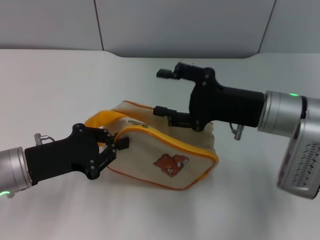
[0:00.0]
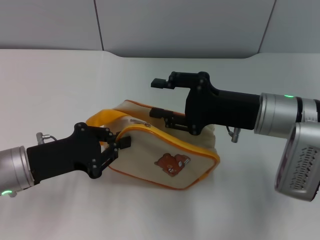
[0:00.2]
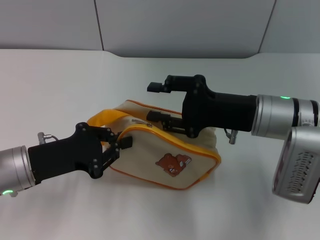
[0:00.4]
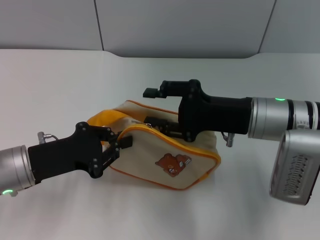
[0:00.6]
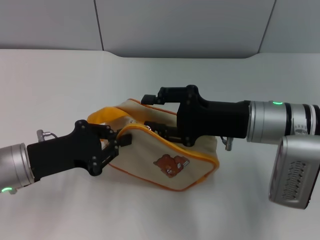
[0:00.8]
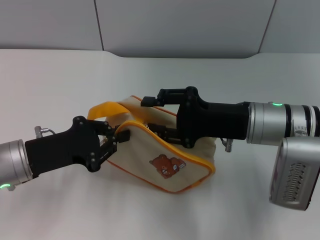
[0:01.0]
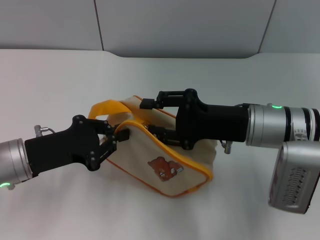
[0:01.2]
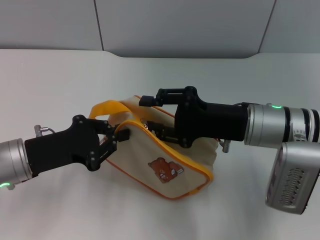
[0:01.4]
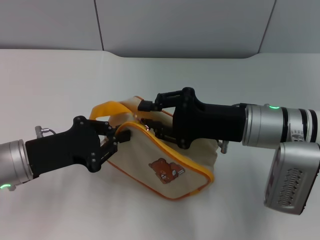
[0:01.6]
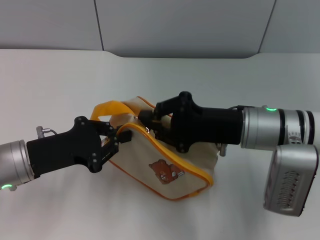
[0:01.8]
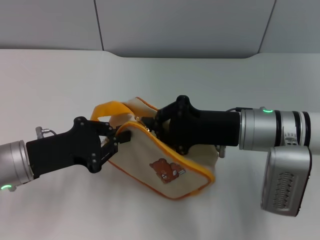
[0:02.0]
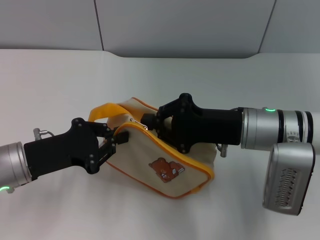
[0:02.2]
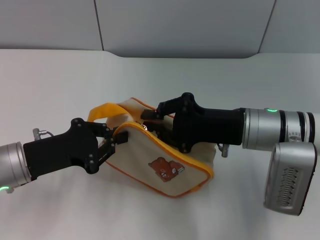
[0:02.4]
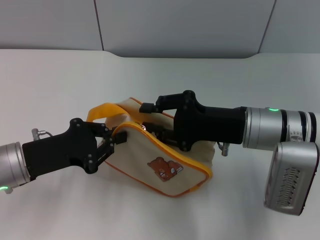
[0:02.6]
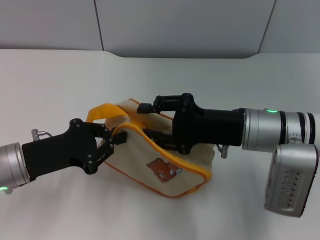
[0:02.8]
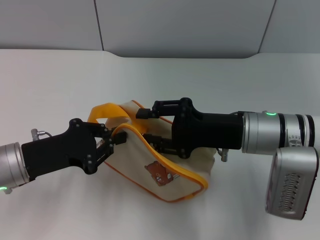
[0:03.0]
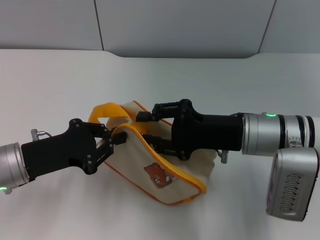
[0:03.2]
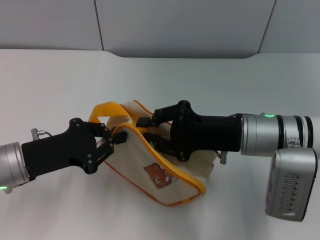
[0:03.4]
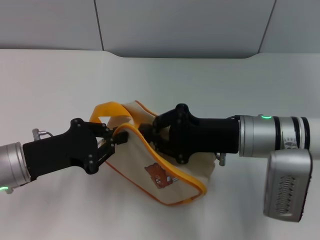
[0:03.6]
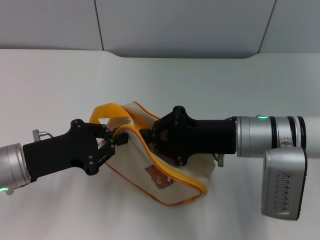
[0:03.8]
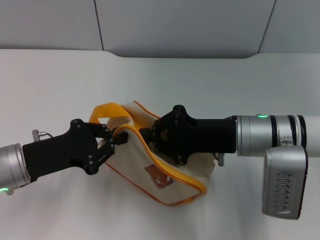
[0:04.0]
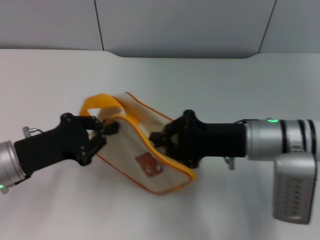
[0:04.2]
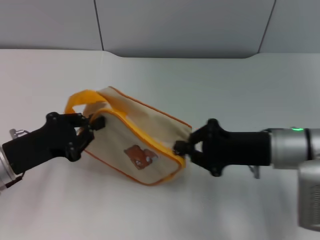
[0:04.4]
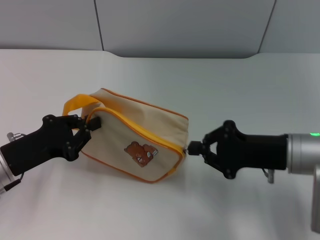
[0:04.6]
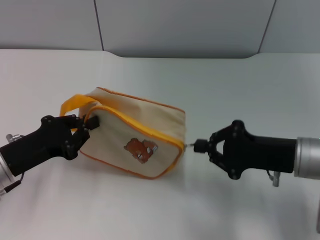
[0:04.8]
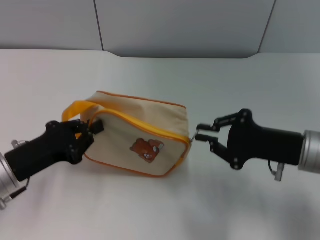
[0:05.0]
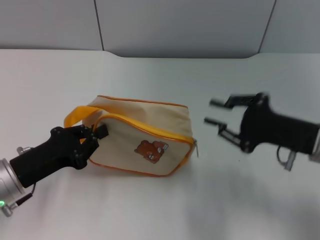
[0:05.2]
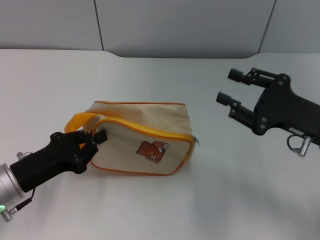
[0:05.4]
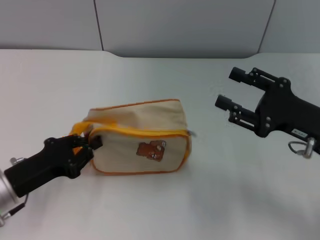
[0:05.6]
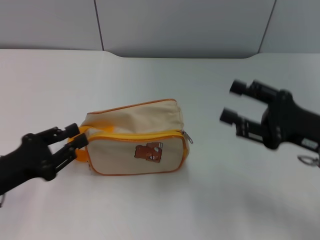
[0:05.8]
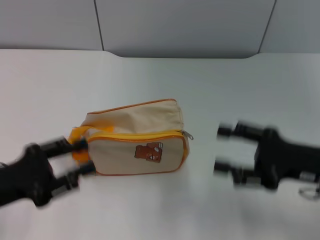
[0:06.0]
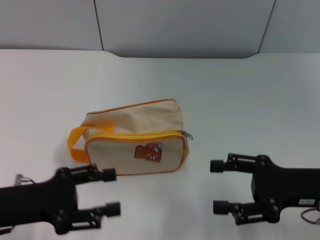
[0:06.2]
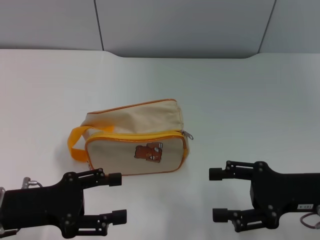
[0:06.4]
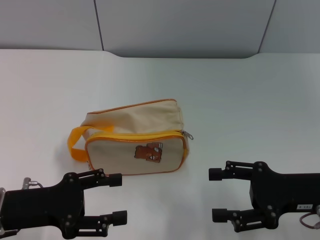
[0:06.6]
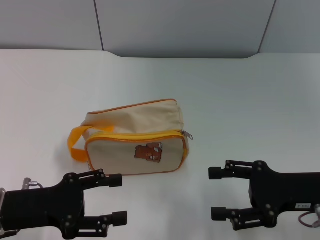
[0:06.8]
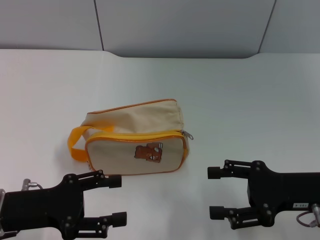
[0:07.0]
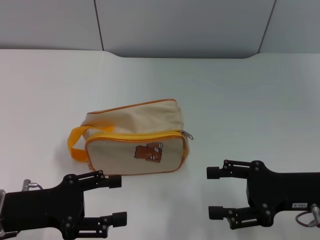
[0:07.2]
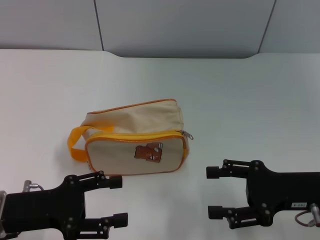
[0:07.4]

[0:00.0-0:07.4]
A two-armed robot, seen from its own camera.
Step, 0:00.0 to 0:05.0: Unzip the zipper of bag with right gripper.
Step, 0:05.4 to 0:05.8: Place the bag on the table with left gripper.
0:01.4 to 0:03.0: The right gripper closes, then opens again.
0:03.0 to 0:04.4: The right gripper closes up.
0:04.4 to 0:06.0: The right gripper moves to the right, roughly 5 cm, and opens its fingers; the left gripper ends up roughly 5 cm from where it was.
0:06.0 to 0:07.4: The left gripper opens.

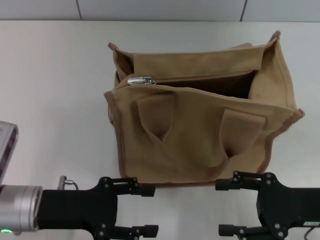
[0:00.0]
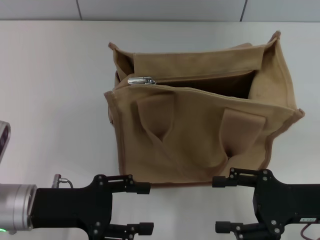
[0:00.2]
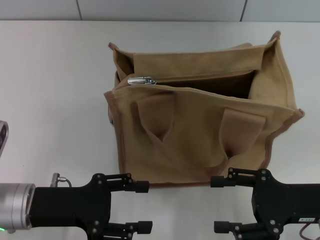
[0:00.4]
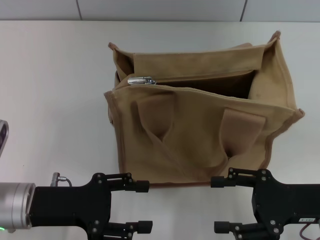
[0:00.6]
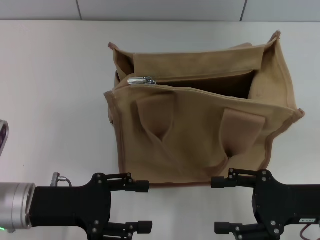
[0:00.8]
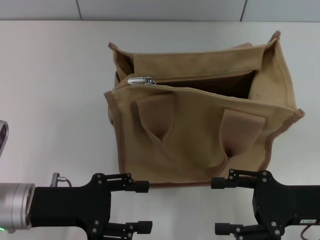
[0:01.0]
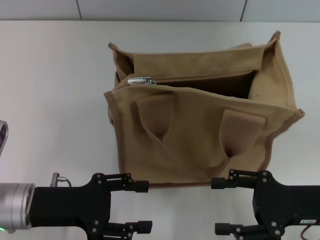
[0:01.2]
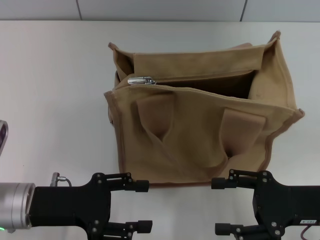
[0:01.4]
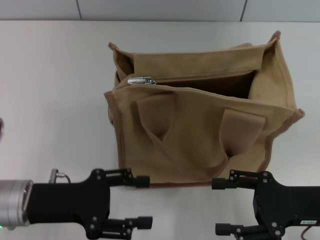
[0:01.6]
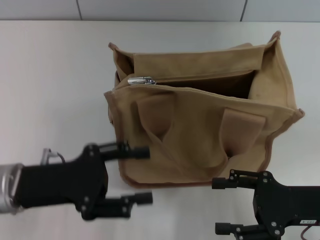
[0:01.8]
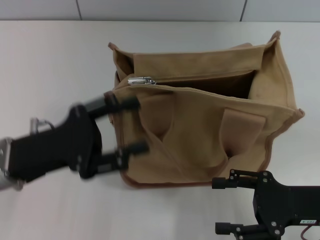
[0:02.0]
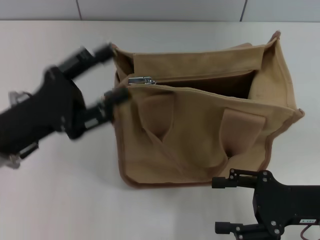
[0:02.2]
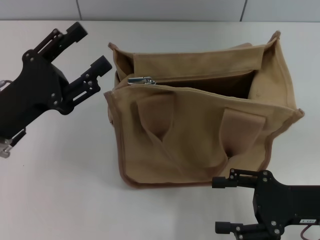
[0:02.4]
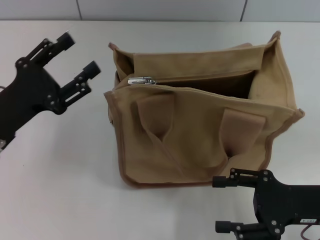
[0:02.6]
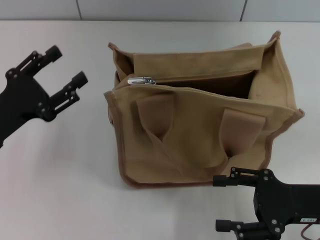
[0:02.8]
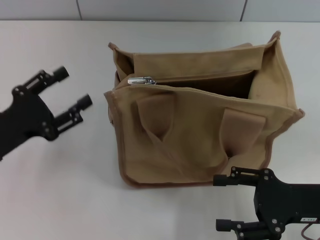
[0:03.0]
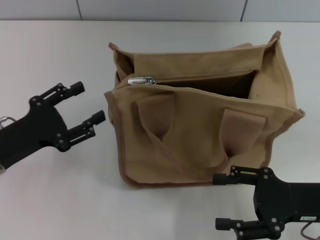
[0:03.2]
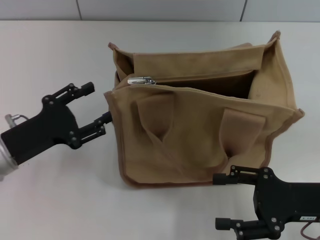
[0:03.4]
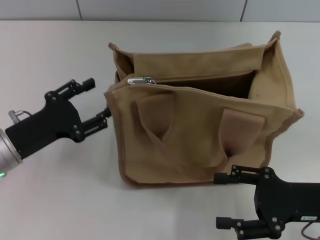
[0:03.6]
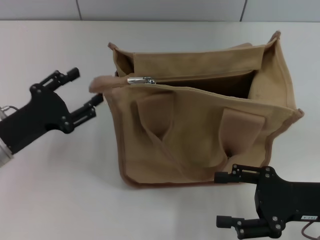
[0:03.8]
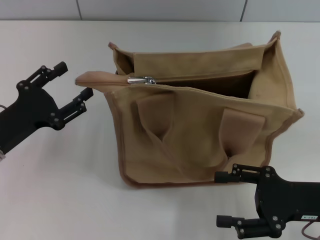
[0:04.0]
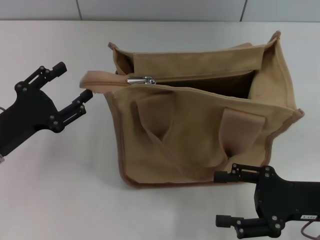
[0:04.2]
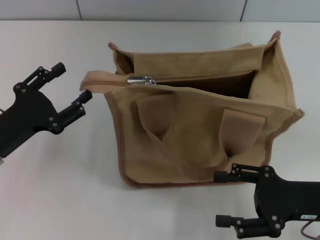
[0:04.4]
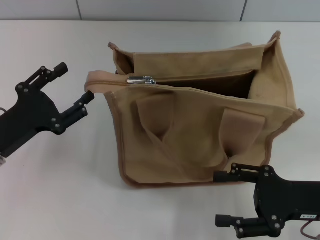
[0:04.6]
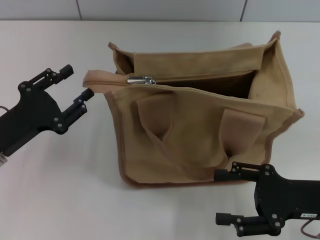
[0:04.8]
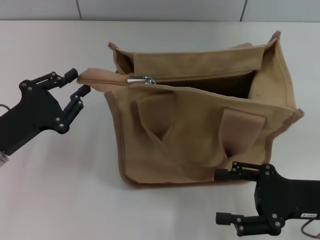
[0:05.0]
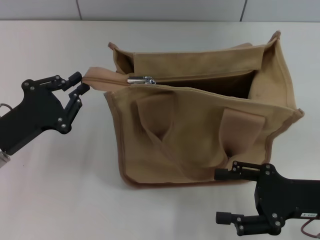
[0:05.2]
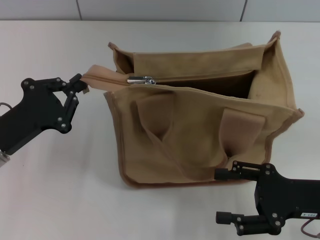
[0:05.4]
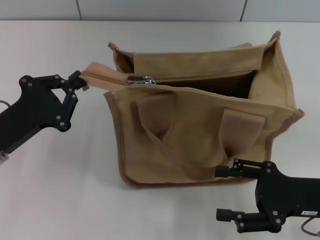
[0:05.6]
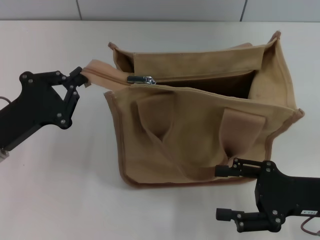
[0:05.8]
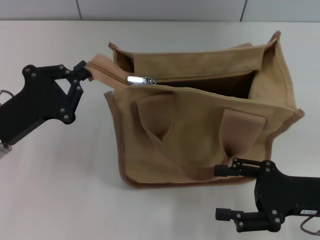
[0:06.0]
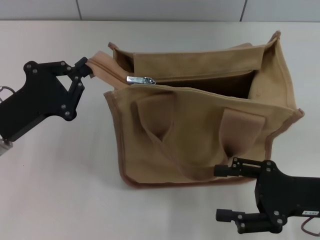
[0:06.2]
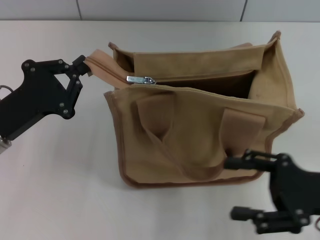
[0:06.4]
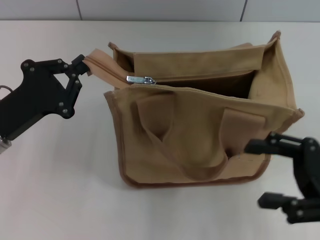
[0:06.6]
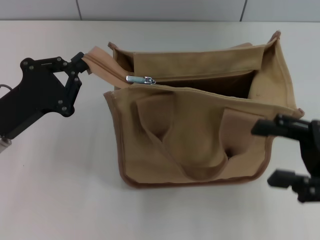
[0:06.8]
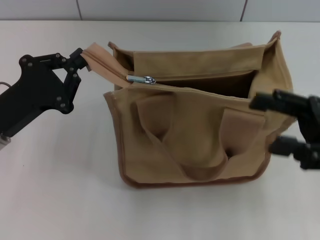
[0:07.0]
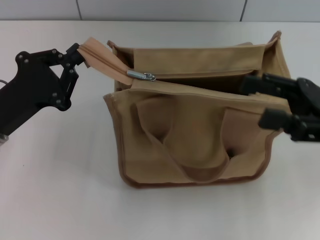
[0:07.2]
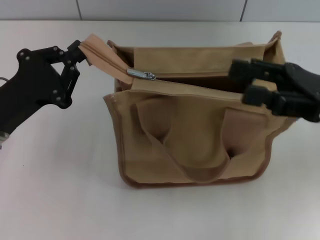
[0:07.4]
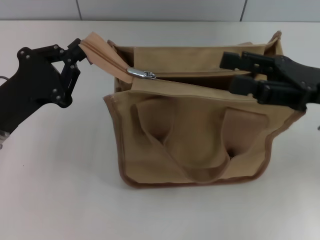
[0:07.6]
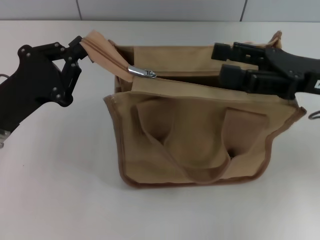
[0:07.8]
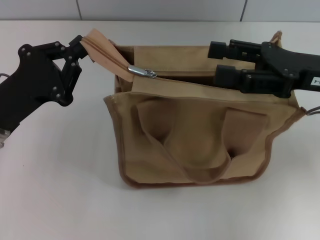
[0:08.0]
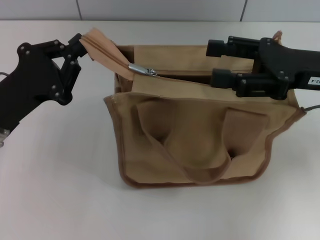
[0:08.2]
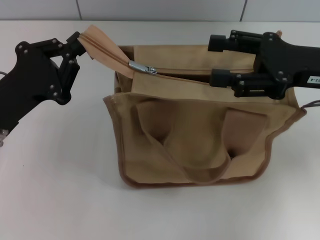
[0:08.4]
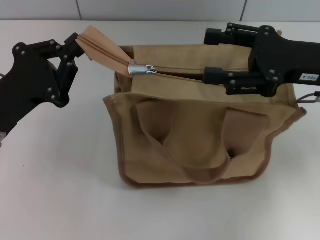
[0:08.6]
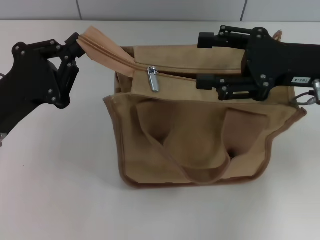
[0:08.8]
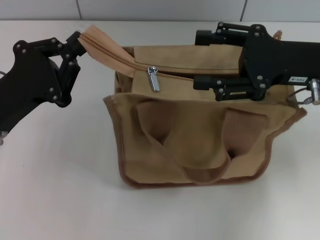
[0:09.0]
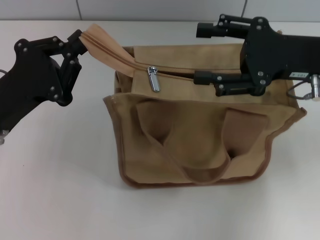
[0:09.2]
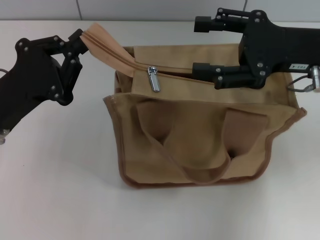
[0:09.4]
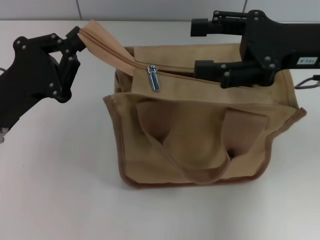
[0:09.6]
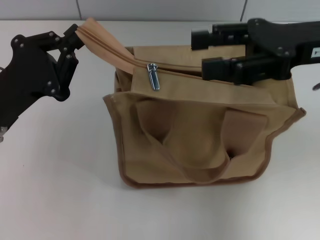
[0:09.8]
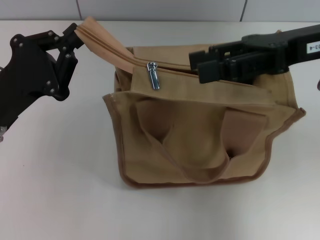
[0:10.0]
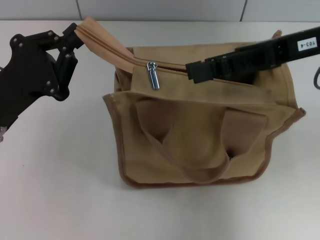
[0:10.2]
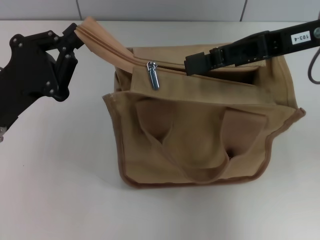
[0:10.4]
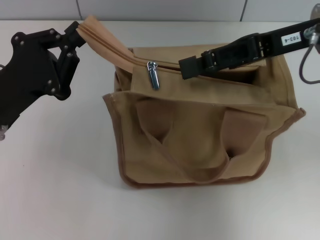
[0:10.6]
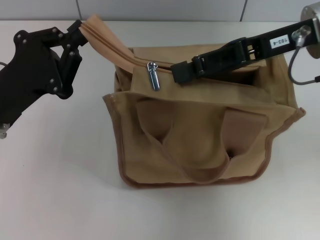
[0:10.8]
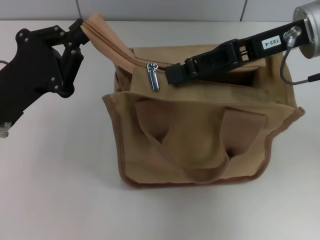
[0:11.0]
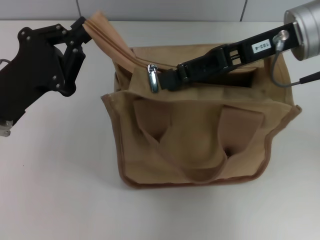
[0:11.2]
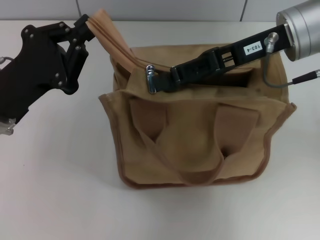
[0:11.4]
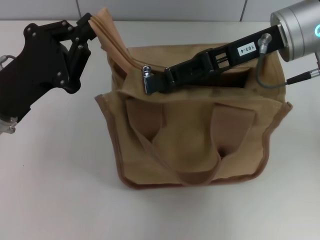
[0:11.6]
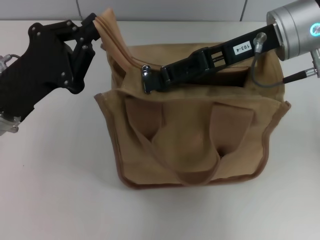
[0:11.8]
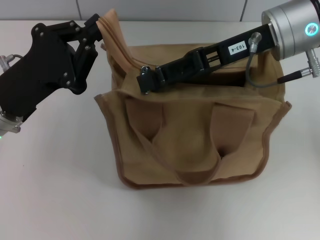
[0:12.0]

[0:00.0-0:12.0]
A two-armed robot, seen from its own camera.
0:00.0 to 0:01.6: Neither gripper changes place.
0:01.6 to 0:03.0: The left gripper moves to the left, roughly 5 cm.
0:03.0 to 0:04.4: The grippers stay close to where they were, moving slightly.
0:04.4 to 0:06.0: The left gripper closes up.
0:06.0 to 0:07.6: The right gripper goes some 10 cm upward and forward.
0:09.0 to 0:10.4: The right gripper shifts roughly 5 cm upward.
0:10.4 to 0:12.0: The right gripper is displaced to the left by approximately 5 cm.

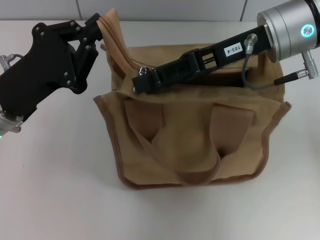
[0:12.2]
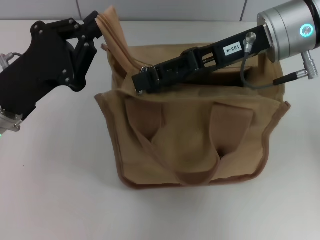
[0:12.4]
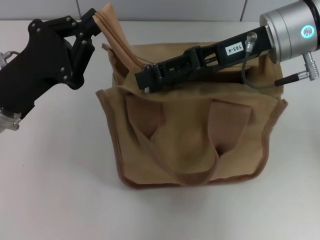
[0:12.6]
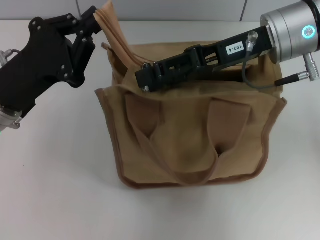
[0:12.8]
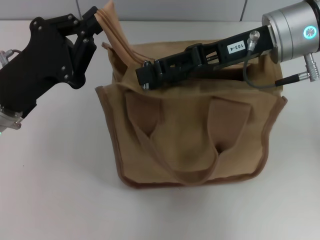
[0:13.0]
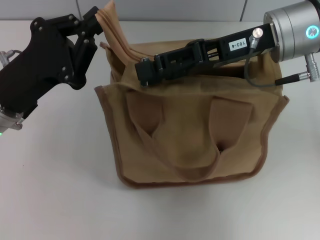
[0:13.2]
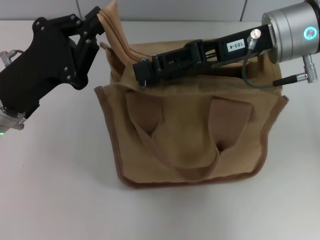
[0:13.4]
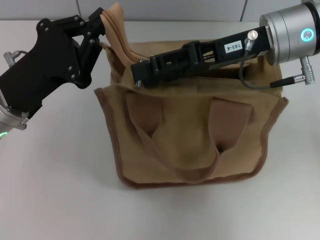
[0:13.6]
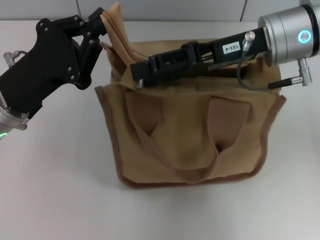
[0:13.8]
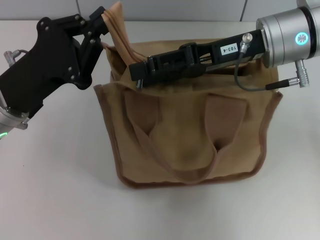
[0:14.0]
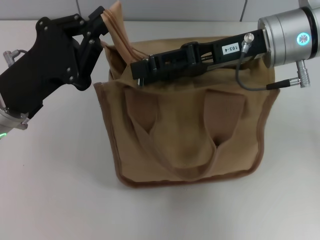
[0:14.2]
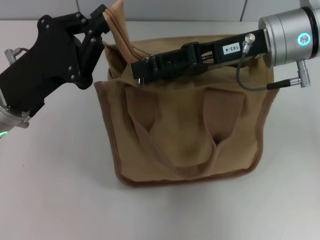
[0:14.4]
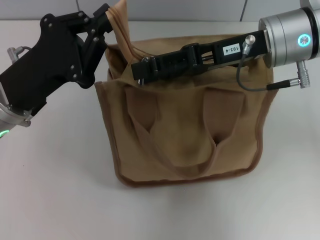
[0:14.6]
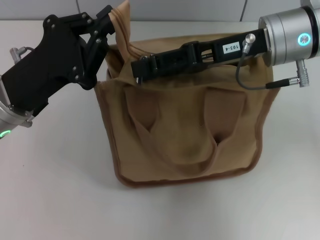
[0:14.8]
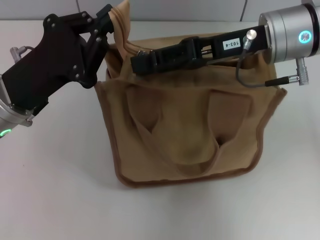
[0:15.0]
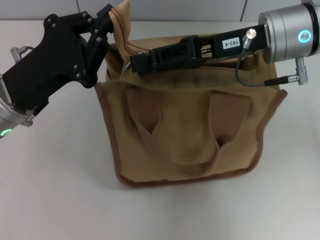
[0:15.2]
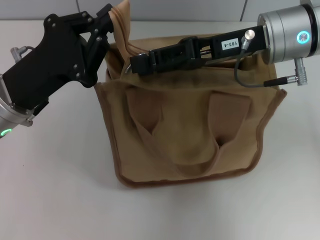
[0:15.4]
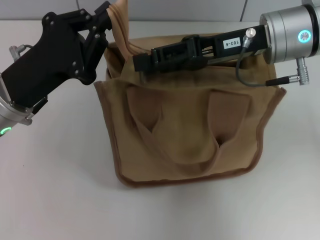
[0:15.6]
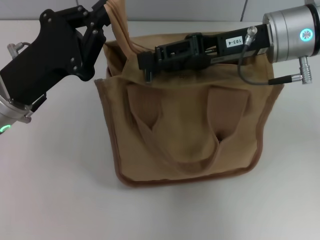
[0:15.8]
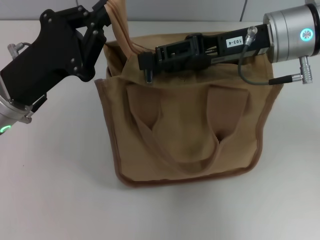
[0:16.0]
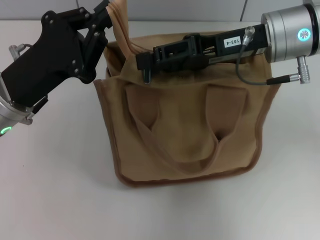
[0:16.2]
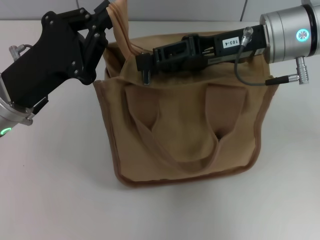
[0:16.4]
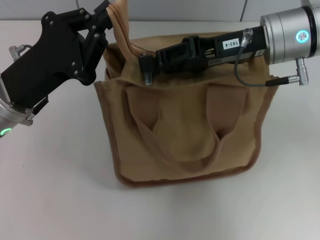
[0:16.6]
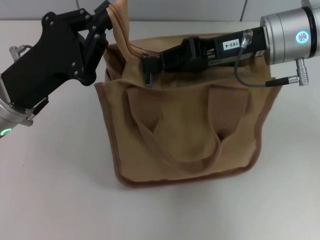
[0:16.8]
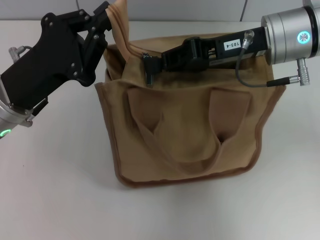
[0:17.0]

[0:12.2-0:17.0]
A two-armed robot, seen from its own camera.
0:12.2 to 0:15.4: The grippers make only small movements.
0:15.4 to 0:17.0: The right gripper closes up.
